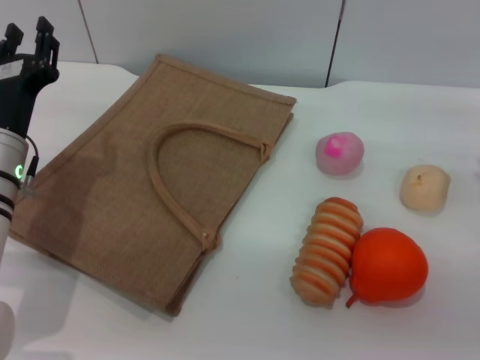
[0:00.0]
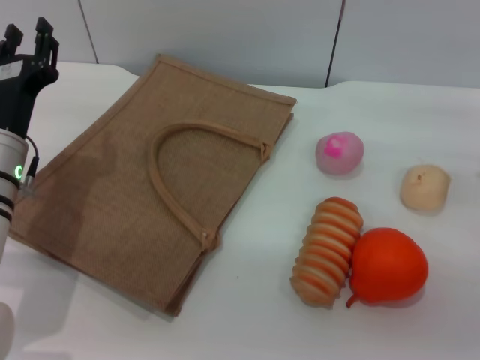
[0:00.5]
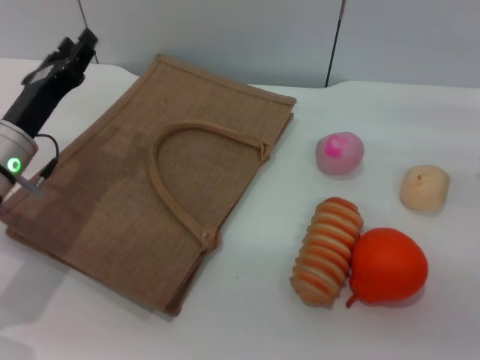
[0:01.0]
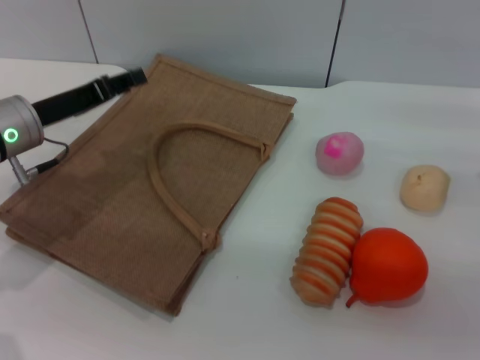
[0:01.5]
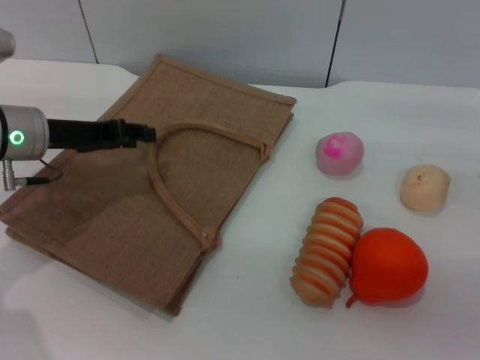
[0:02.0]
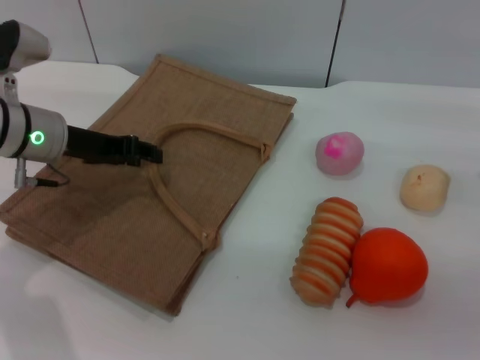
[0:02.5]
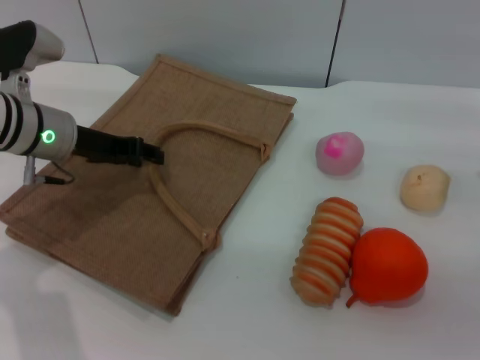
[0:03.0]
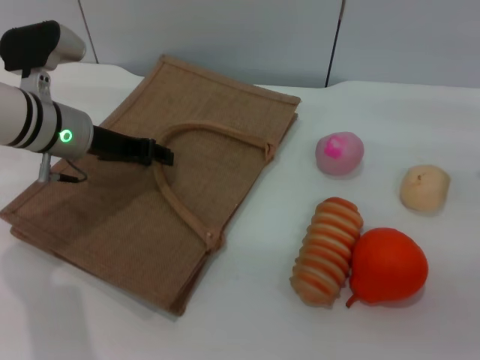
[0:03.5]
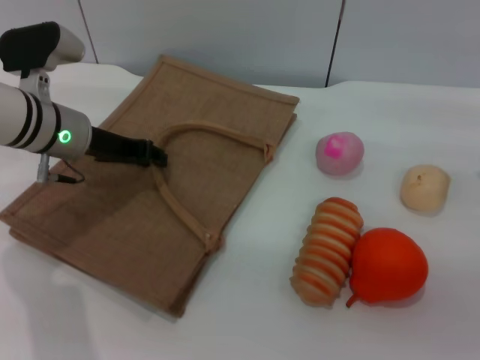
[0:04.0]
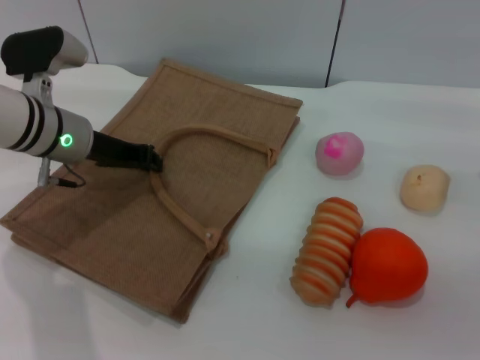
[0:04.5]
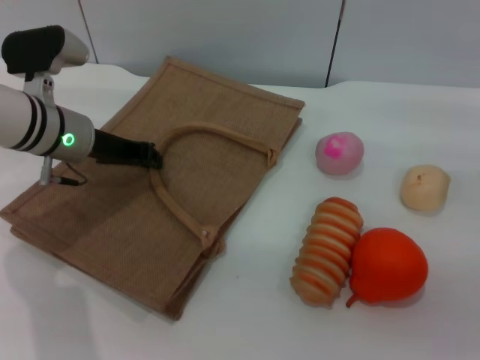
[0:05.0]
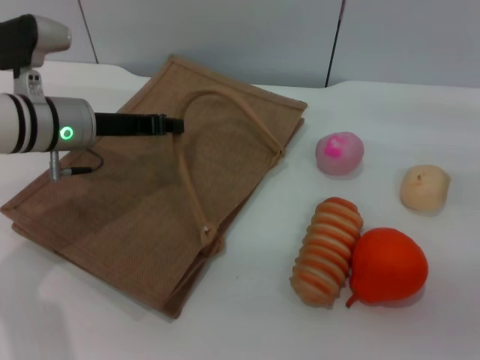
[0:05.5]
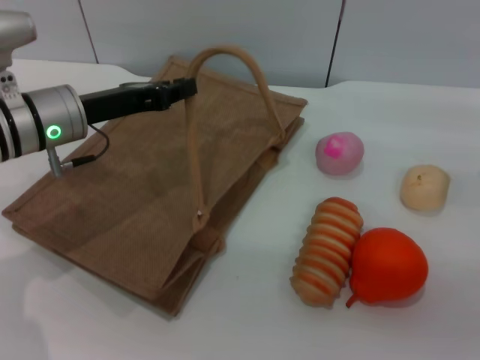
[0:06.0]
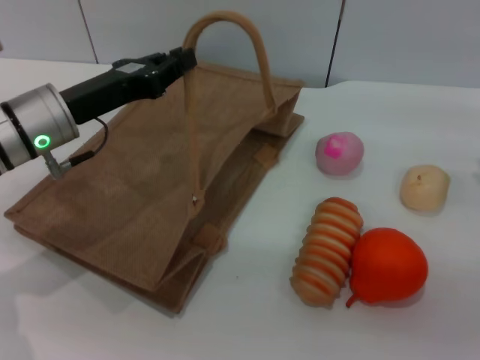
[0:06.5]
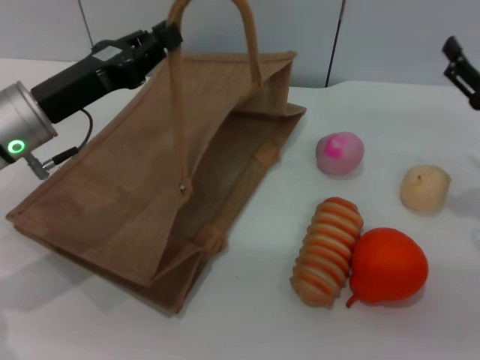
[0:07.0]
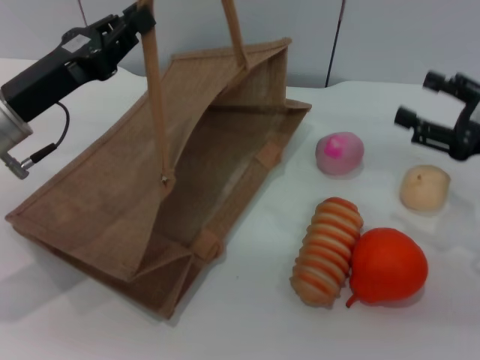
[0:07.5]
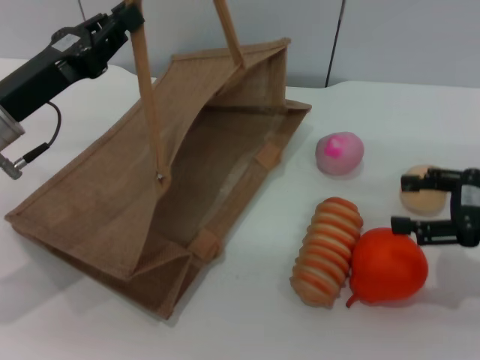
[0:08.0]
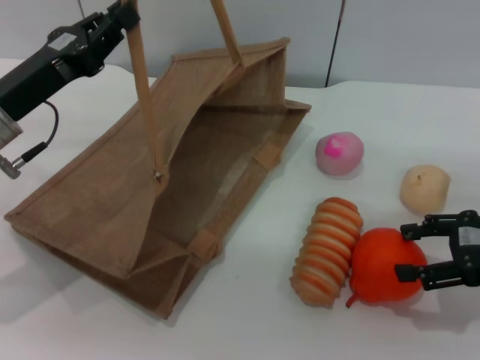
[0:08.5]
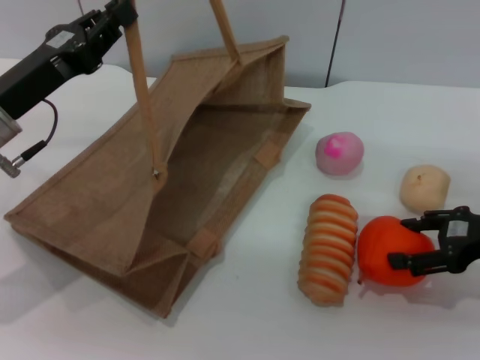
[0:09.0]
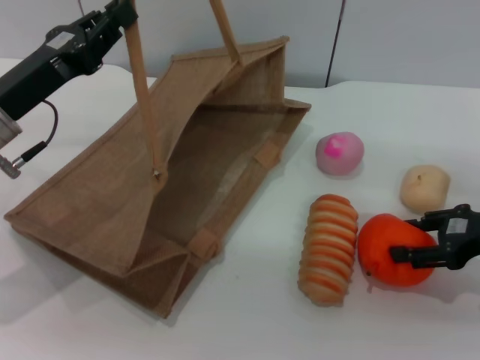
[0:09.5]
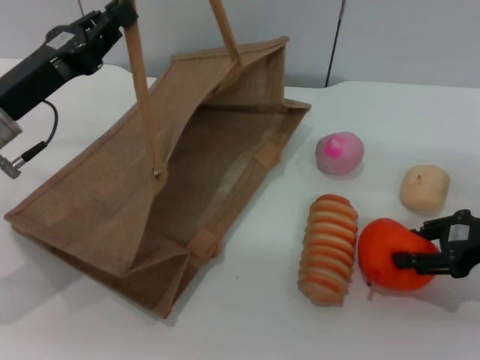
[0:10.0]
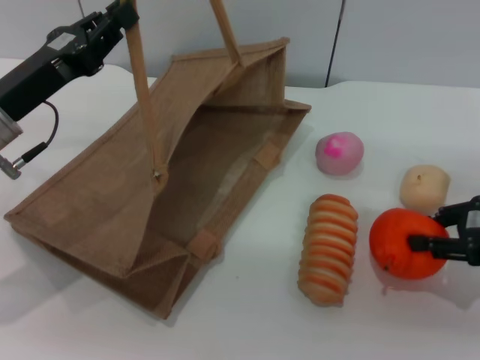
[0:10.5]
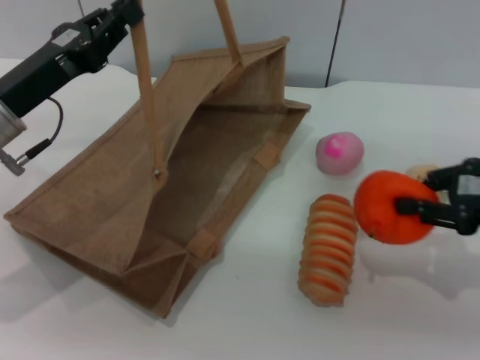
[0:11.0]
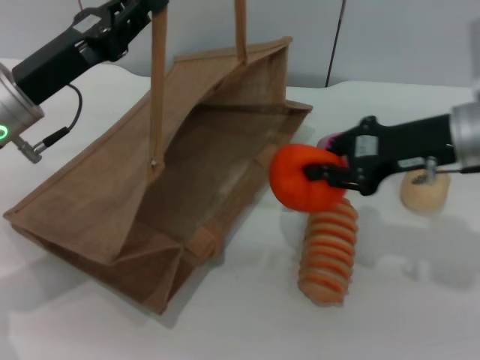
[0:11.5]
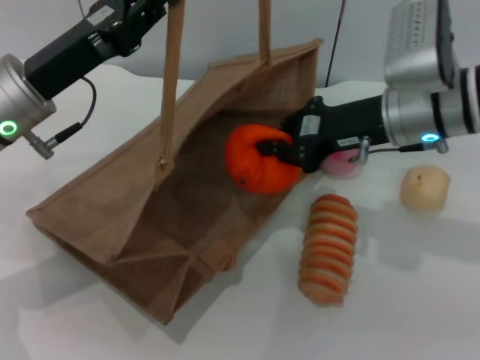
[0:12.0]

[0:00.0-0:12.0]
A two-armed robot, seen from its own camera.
Task of the whole recording: pick up the orange and peach from the table and place it in the brown handbag.
Step, 0:00.0 to 0:06.5: Lift the woven bag with the left gripper to open it.
Step, 0:07.0 to 0:10.5: Pick up the orange with the right gripper.
0:00.0 to 0:02.0: The left gripper is displaced forward by some 5 cm.
0:02.0 to 0:04.0: The grippers stay close to where they were, moving slightly.
0:04.0 to 0:06.0: The left gripper closes.
0:06.0 to 0:08.0: The left gripper moves backward, roughly 5 cm.
0:08.0 to 0:10.0: The right gripper closes.
0:10.0 to 0:12.0: The right gripper shifts some 15 cm to the left and forward, and closes.

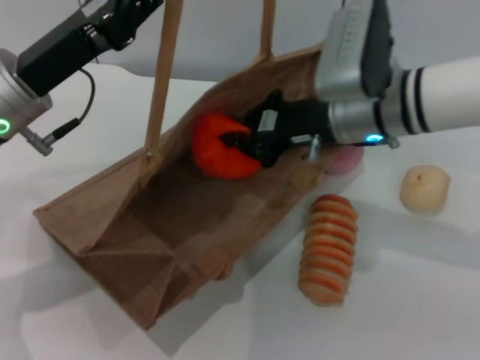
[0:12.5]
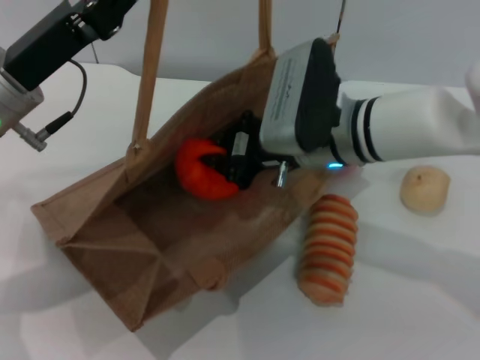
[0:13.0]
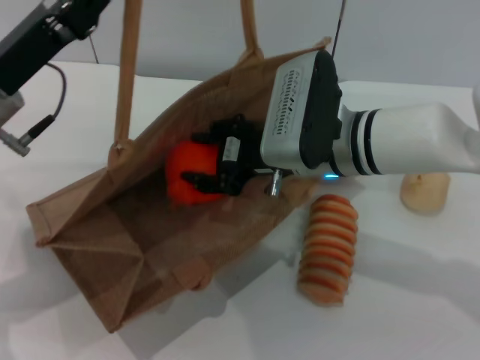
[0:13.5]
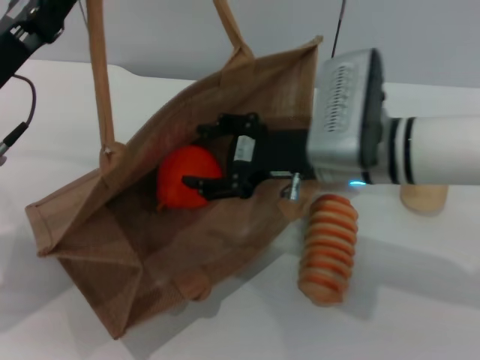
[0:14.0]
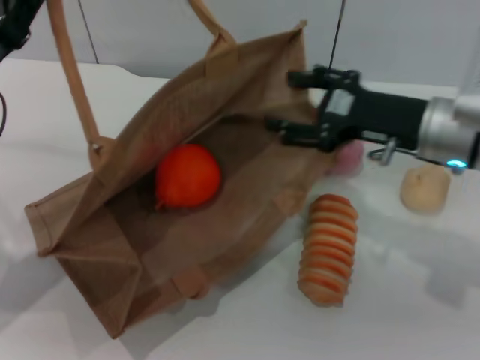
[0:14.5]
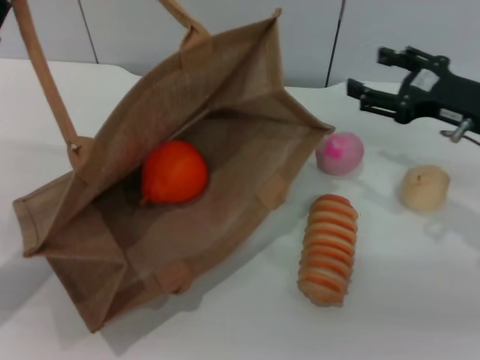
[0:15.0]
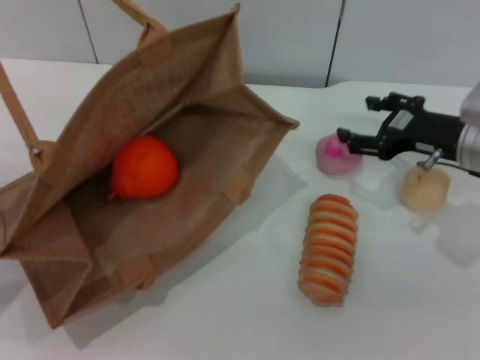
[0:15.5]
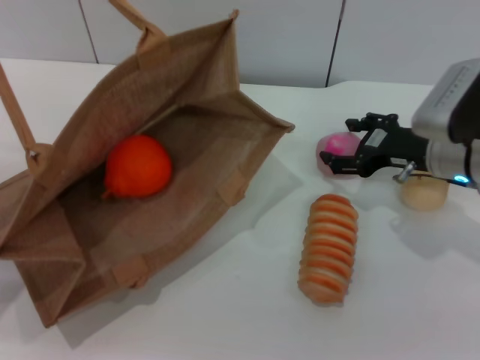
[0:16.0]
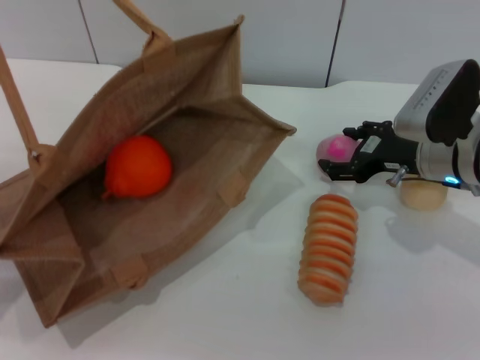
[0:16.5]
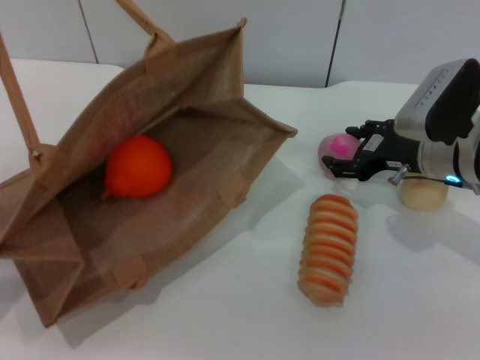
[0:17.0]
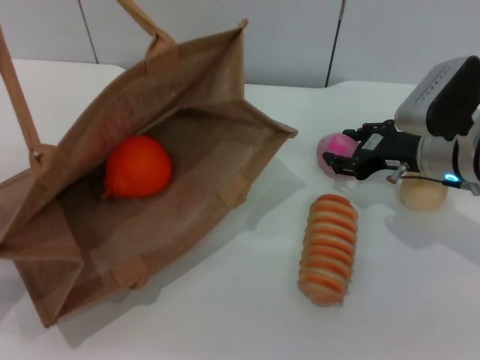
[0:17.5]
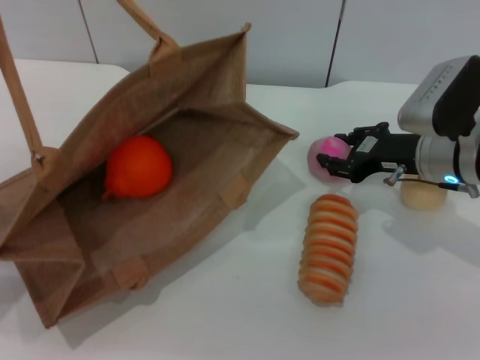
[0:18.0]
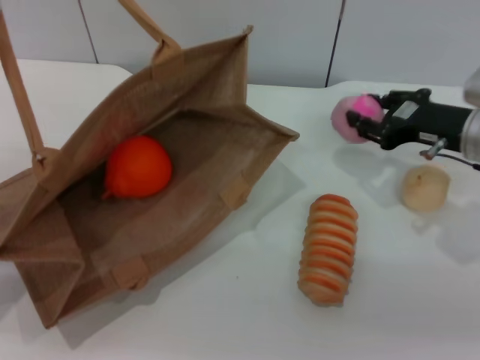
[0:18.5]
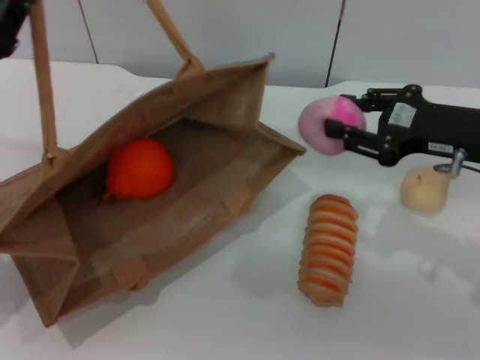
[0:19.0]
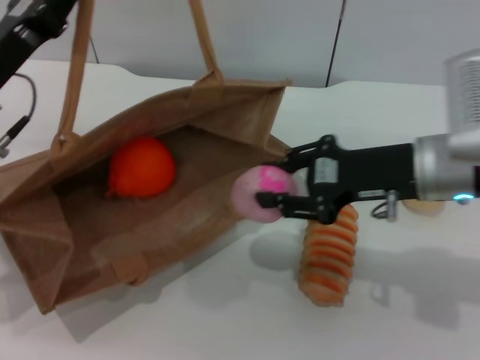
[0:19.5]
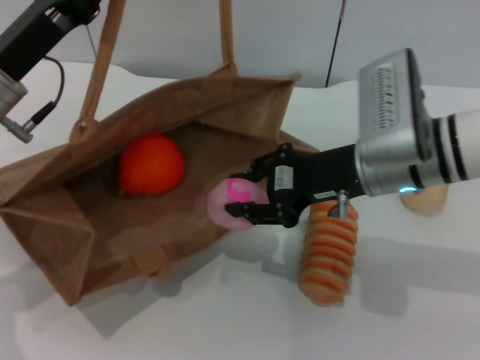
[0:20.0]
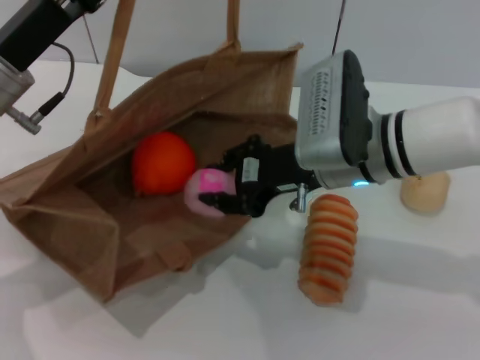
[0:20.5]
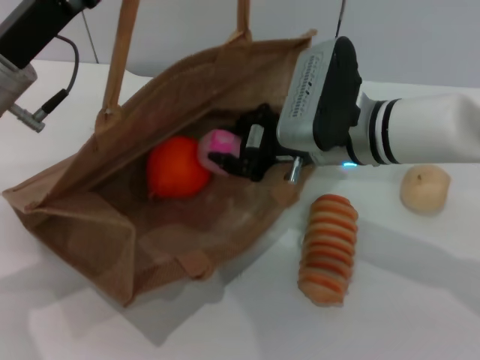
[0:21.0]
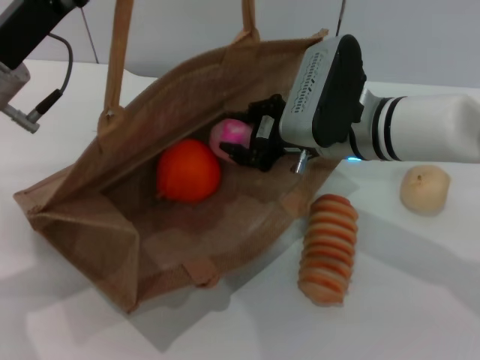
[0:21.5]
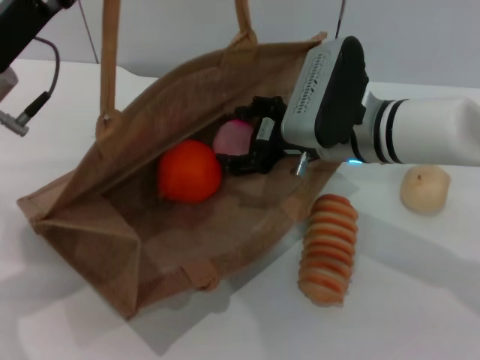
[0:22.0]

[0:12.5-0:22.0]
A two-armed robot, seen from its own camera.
Task of the whole recording: pick up the orange and peach from the table and place it in the brown handbag.
Step, 0:14.5 to 0:18.0: Pick up the peach with the right gripper.
0:12.5 to 0:14.5: The right gripper is displaced to the right by some 10 cm, and opens up, while the left gripper shifts about 5 cm to the left.
0:14.5 to 0:16.5: The right gripper travels downward by roughly 5 cm.
0:16.5 to 0:18.0: The right gripper closes its fingers.
0:18.0 to 0:20.0: The right gripper goes roughly 10 cm to the left. The left gripper is displaced to the right and forward by about 10 cm.
0:20.0 to 0:22.0: The right gripper opens up.

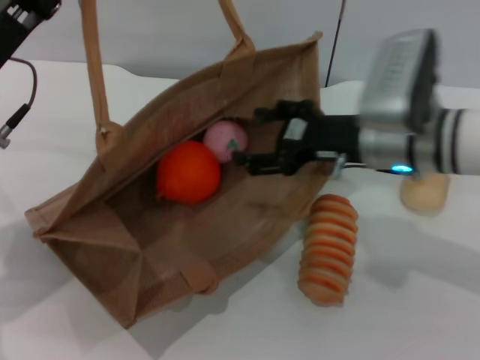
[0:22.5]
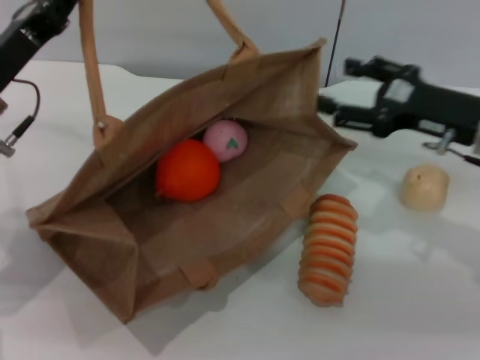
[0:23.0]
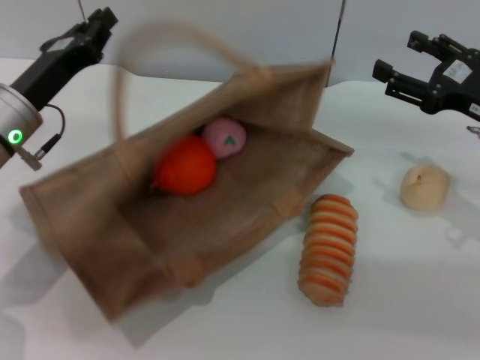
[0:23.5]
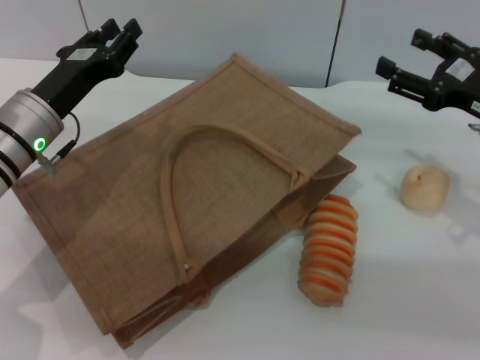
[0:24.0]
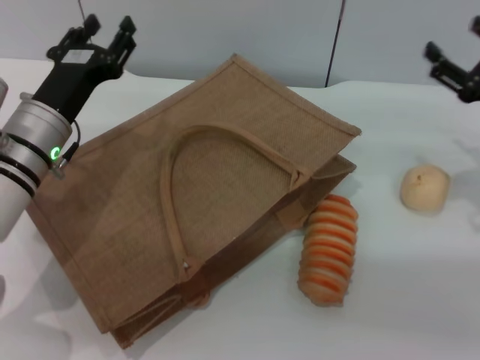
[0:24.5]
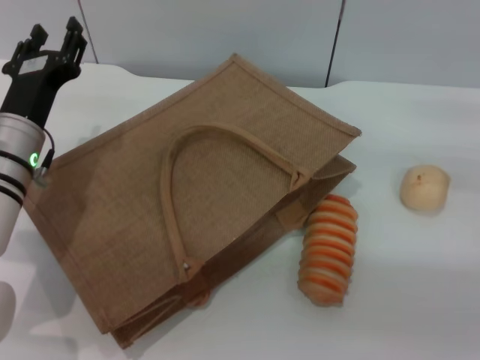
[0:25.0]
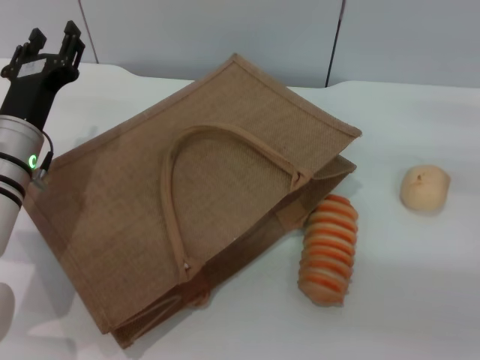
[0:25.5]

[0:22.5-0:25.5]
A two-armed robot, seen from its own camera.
Task of the whole recording: pick up the orange and peach from the table and place it in the brown handbag.
Step, 0:22.5 to 0:23.5: Lower the woven bag with the left gripper to close it.
0:22.5 to 0:24.0: The left gripper goes about 5 cm downward, and opens. The right gripper goes roughly 15 cm to the right.
0:24.0 to 0:25.5: The right gripper moves roughly 5 cm; the left gripper opens.
